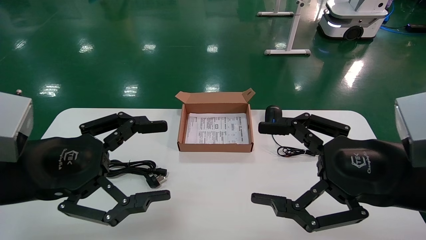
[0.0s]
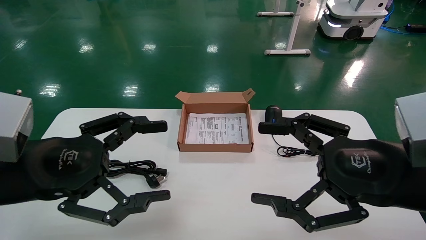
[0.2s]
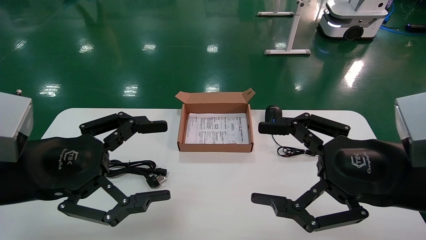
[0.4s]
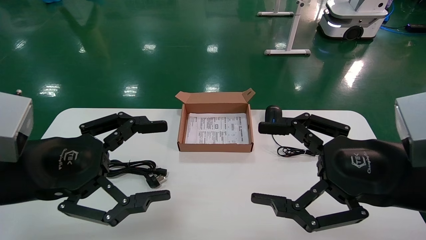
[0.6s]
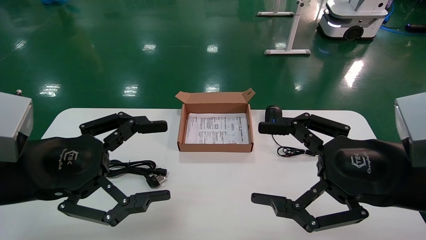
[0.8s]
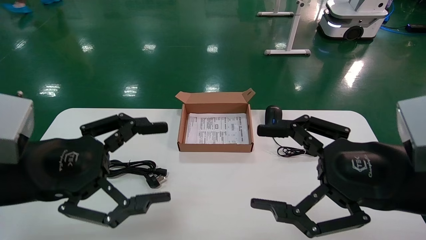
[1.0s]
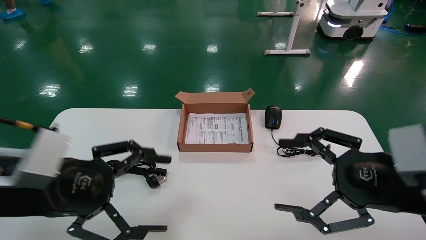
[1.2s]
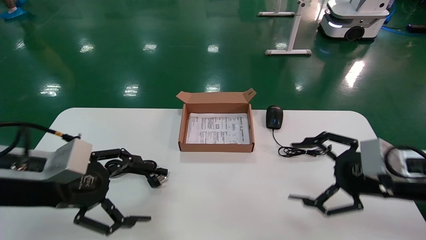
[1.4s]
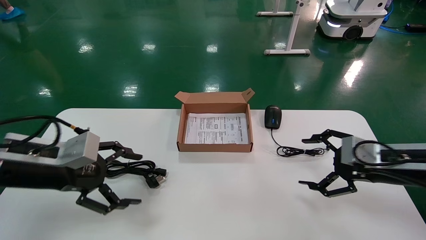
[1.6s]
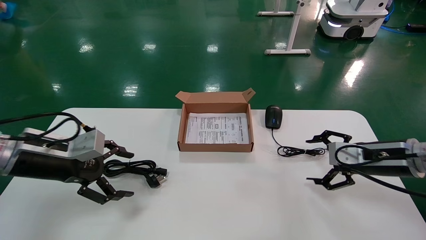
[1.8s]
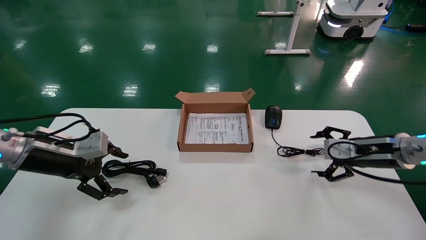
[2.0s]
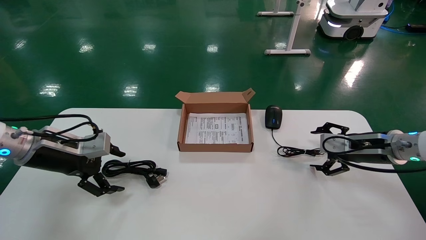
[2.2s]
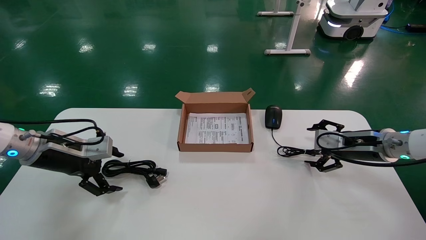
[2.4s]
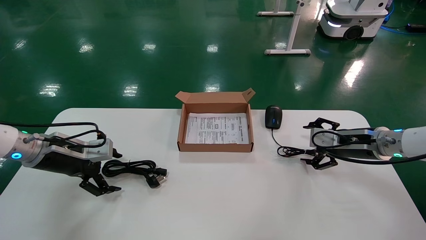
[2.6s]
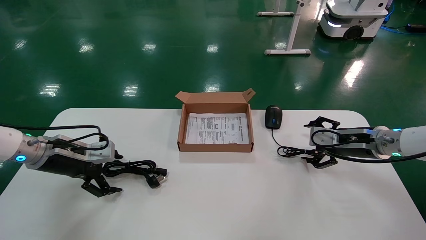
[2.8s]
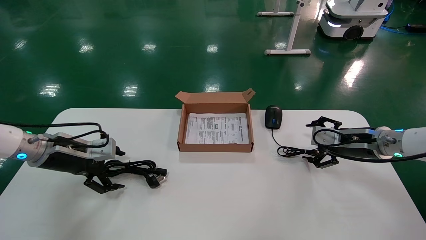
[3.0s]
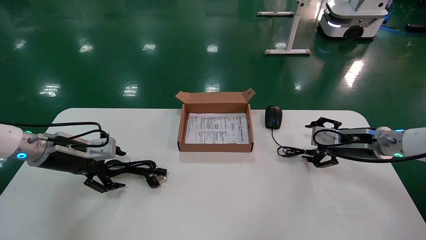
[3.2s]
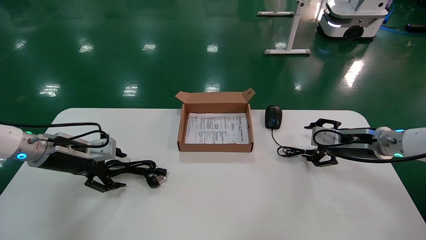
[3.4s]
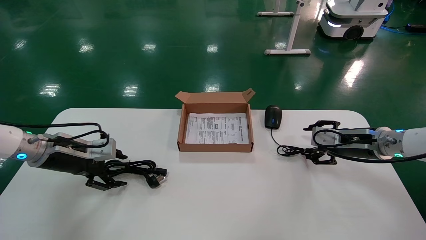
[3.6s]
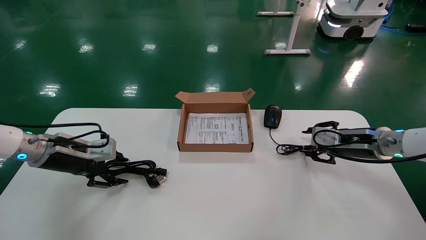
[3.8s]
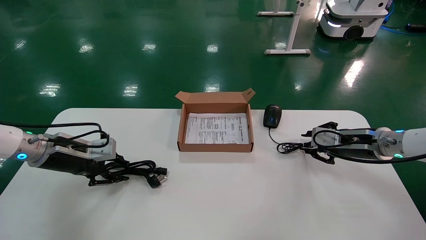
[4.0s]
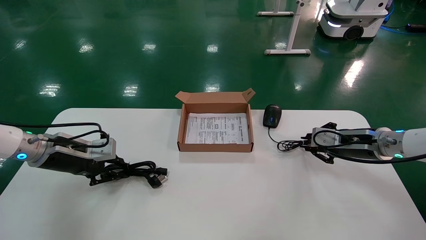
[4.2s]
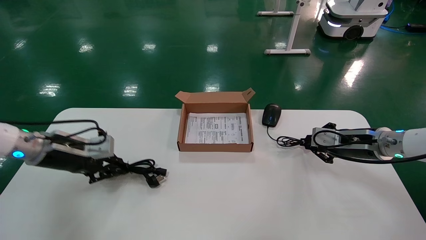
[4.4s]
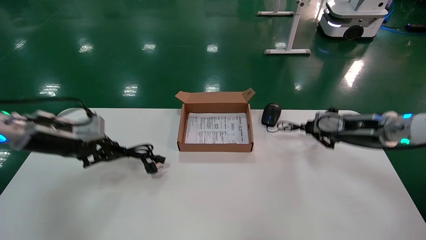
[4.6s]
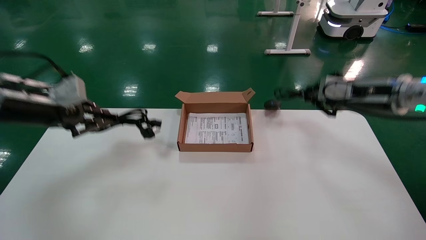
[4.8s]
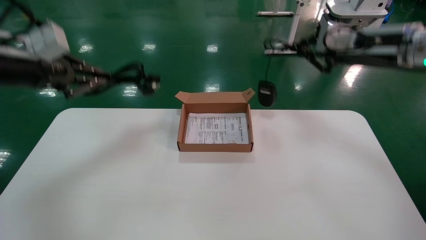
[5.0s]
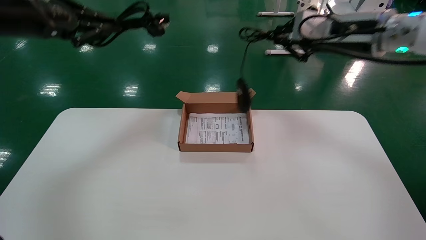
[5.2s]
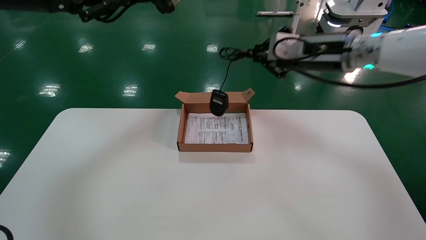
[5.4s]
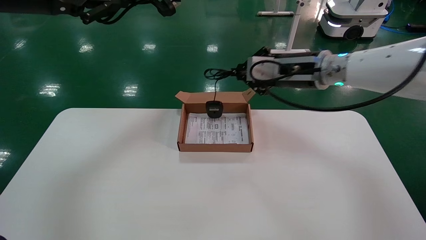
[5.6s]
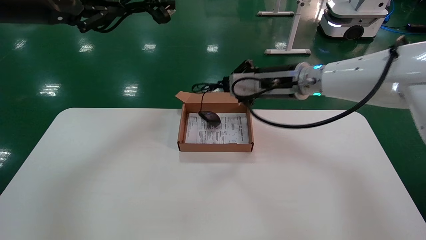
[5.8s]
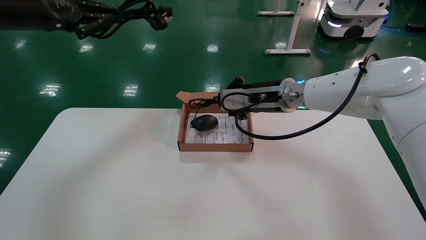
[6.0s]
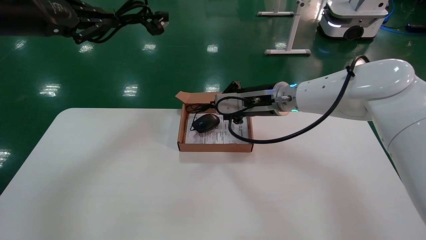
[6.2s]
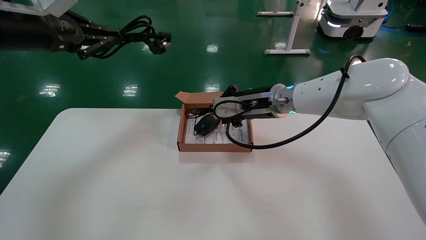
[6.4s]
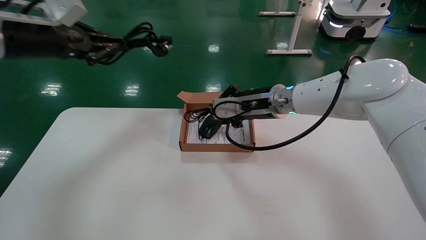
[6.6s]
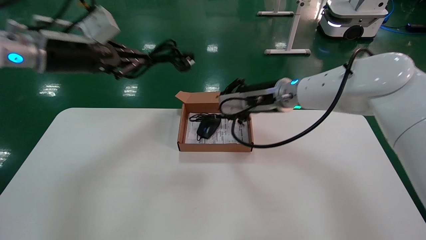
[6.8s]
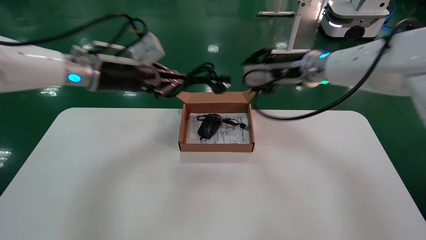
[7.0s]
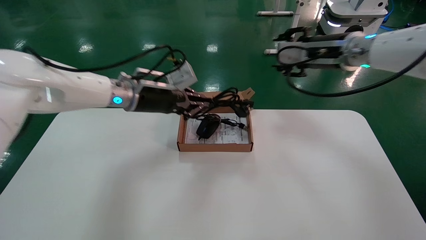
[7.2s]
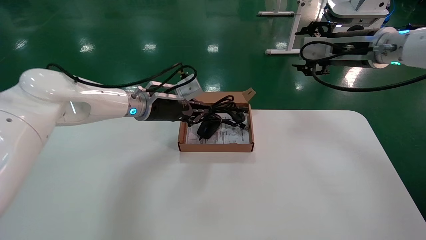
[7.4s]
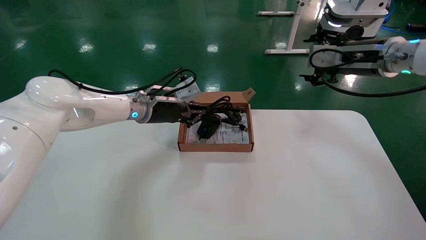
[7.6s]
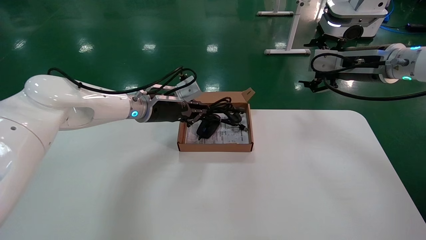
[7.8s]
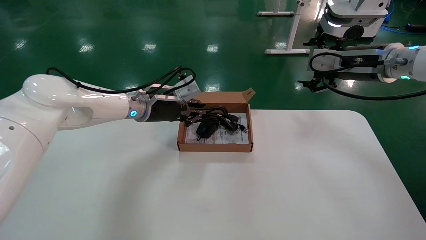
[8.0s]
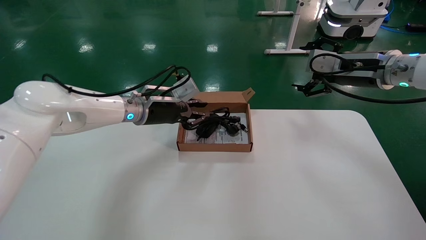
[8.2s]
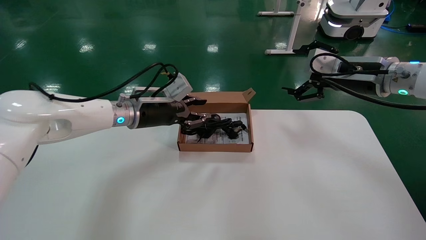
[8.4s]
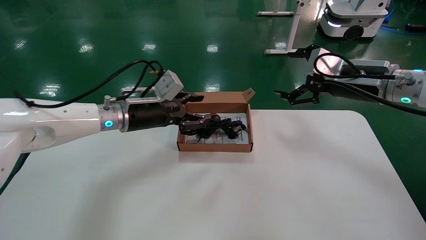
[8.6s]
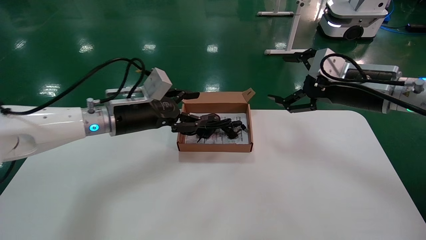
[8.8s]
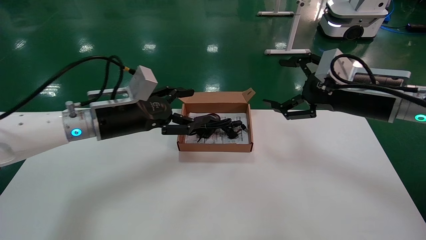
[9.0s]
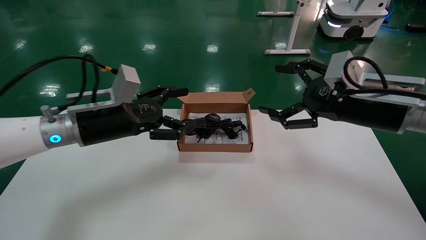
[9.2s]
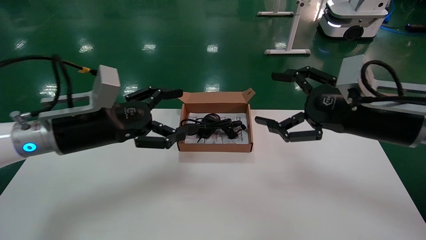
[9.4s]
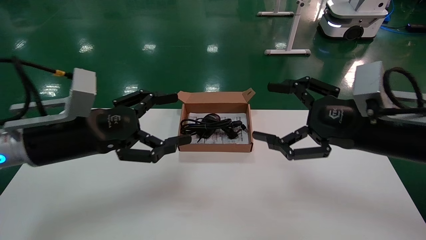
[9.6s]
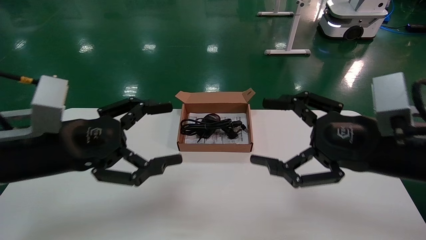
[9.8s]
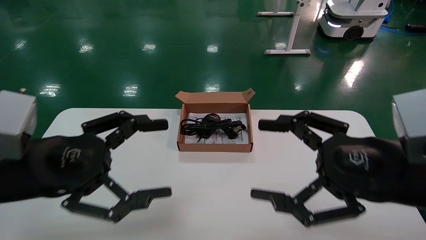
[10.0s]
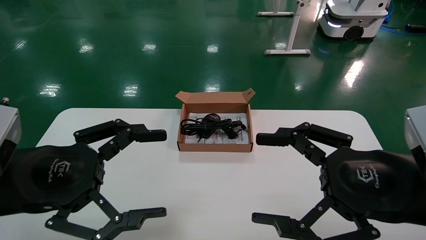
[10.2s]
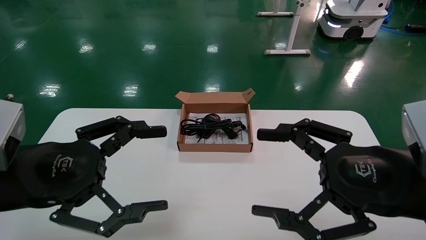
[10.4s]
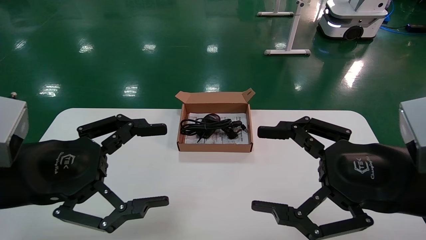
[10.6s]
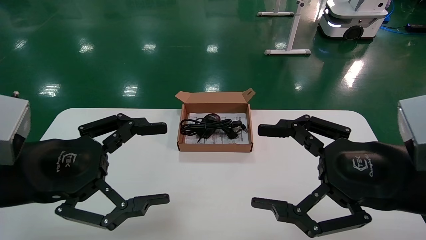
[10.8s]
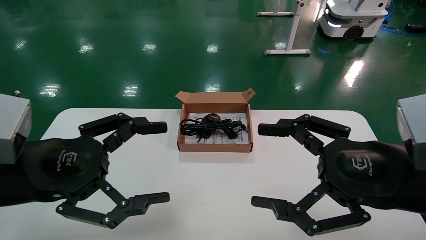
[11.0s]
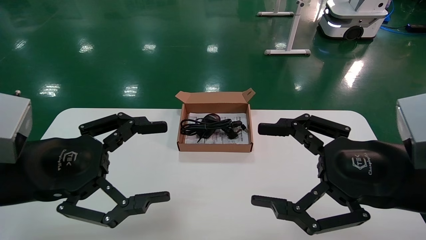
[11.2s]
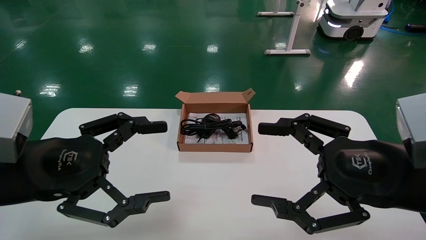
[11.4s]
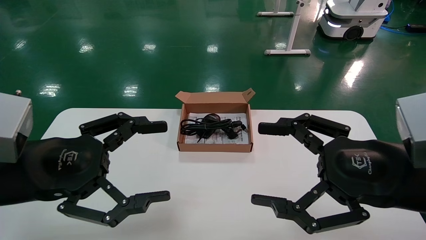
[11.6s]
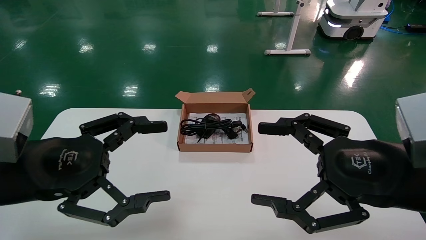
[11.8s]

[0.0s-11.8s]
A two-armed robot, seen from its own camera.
Step, 1.4s to 4.6s: Grab and lift both the mouse and power cord from the accessory packaging area at the same time.
Step, 4.8s to 8.6s: Place the mouse and power cord into the box.
0.0s to 1.4s: The right gripper travels forward and to the right by some 10 cm, while the left gripper travels forward by about 5 cm.
1.4s to 3.0s: The right gripper travels forward by about 15 cm, while the left gripper travels forward and to the left by some 15 cm.
3.0s to 4.4s: The left gripper closes, while the right gripper closes its fingers.
4.4s to 6.0s: The right gripper heads to the left and upward, covering about 25 cm. Meanwhile the left gripper travels upward by roughly 25 cm.
6.0s to 7.4s: The right gripper shifts approximately 15 cm to the right and upward, and opens its fingers. The left gripper is displaced downward, to the right and forward by roughly 30 cm.
7.4s to 8.8s: The right gripper travels backward and downward by approximately 10 cm, and opens its fingers, while the left gripper goes some 5 cm backward, and opens up.
8.8s to 10.4s: Both grippers move backward, approximately 20 cm. The left gripper opens.
10.4s to 11.8s: Both grippers stay put.

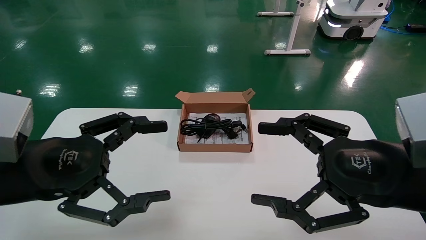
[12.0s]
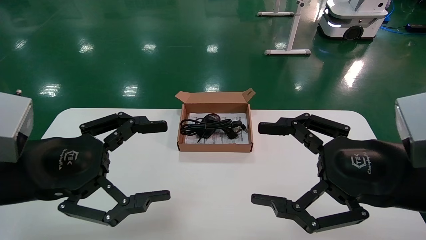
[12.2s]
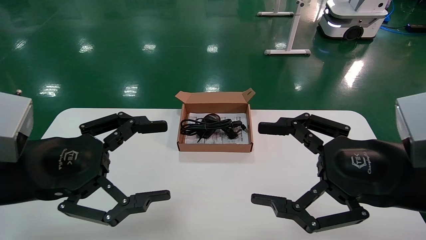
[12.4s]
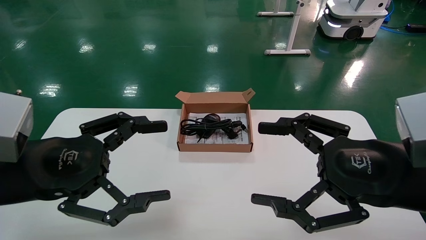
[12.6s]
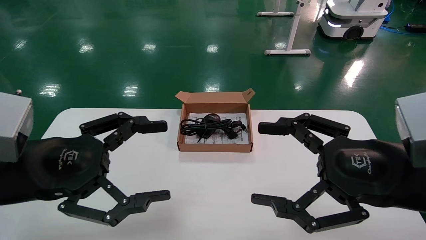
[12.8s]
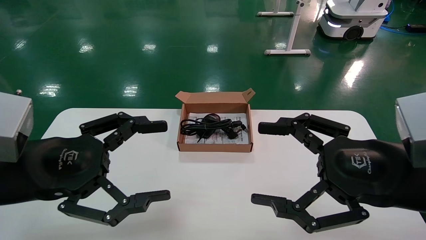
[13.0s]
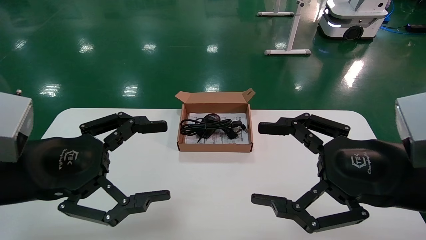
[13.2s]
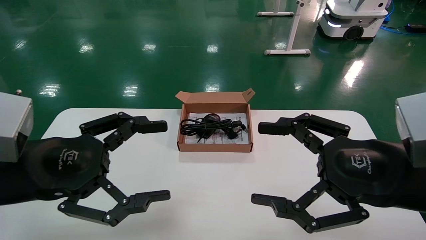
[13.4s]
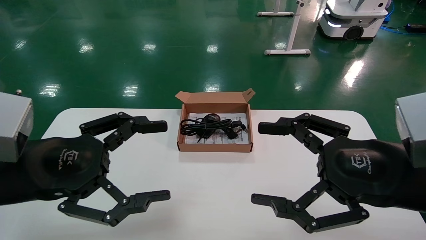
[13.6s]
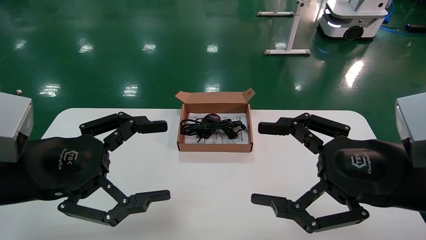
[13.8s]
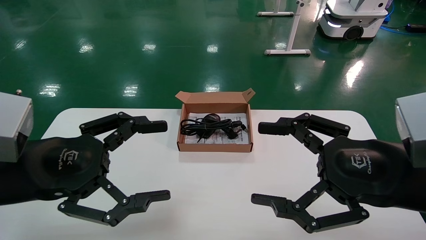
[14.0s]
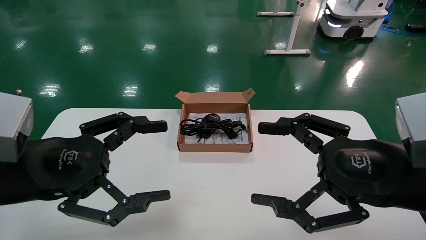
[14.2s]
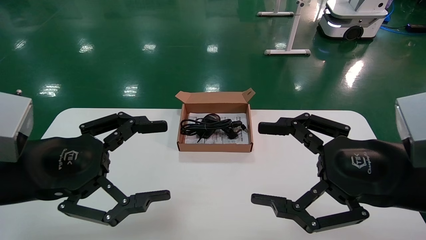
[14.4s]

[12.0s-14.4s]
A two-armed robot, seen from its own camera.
12.0s to 14.4s: The two grippers keep their place.
